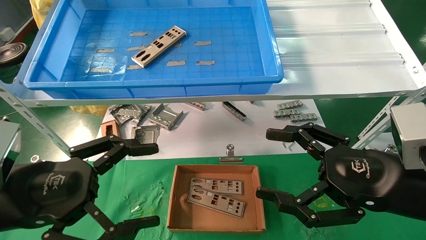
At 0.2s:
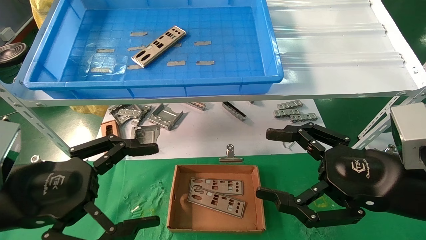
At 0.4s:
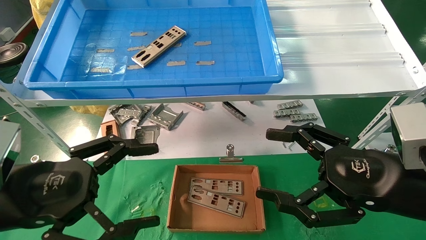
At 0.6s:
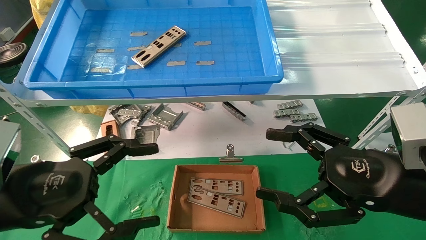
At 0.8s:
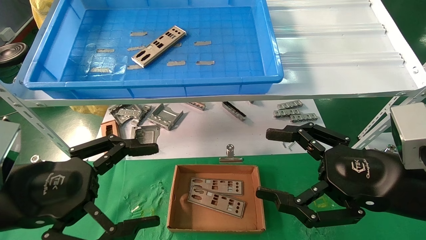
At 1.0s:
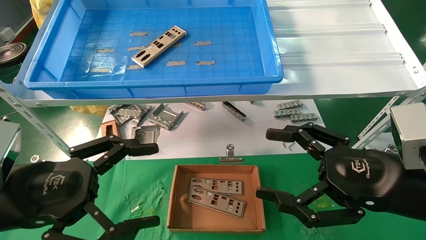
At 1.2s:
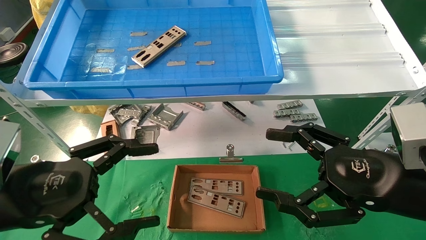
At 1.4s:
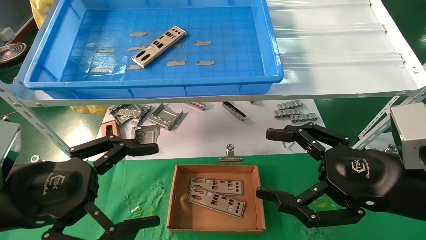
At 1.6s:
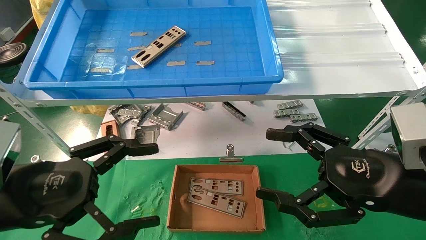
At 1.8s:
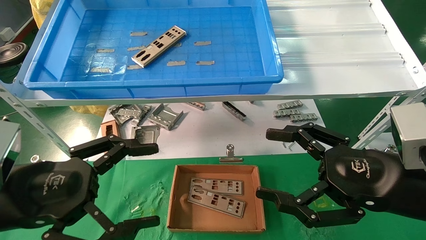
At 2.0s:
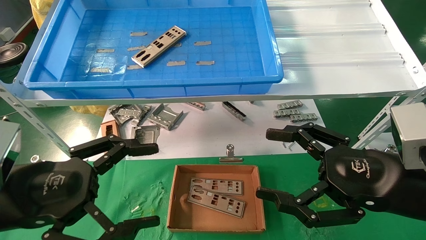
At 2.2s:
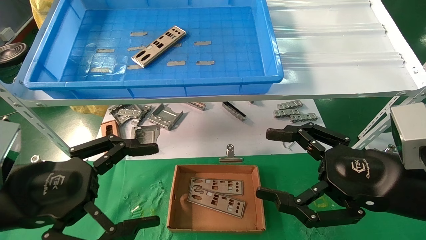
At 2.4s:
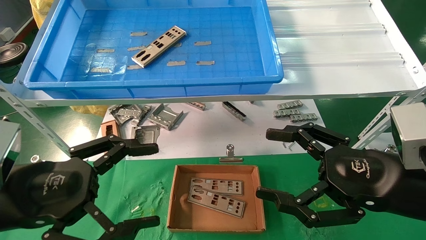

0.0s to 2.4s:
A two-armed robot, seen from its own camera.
Task of the whole recording: pick up the parts on the tray and put them in the cardboard box.
0.0s to 2.4s: The two grippers keep their place.

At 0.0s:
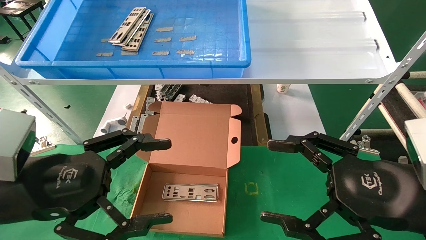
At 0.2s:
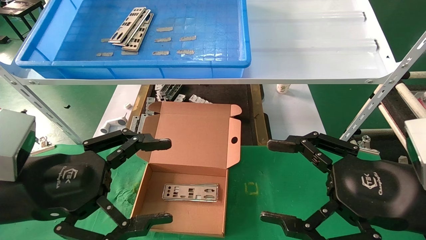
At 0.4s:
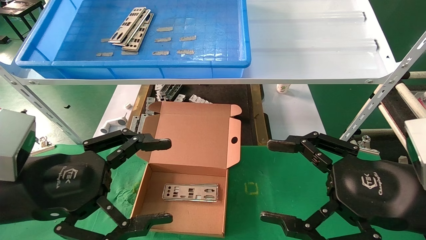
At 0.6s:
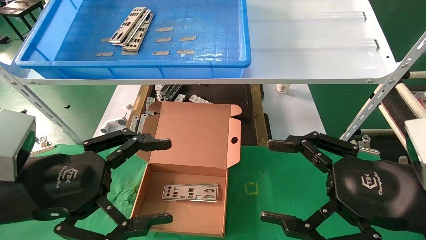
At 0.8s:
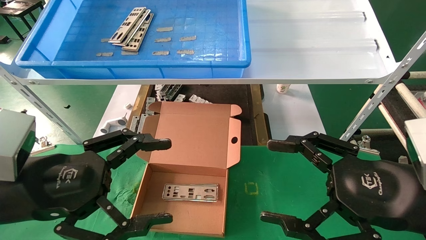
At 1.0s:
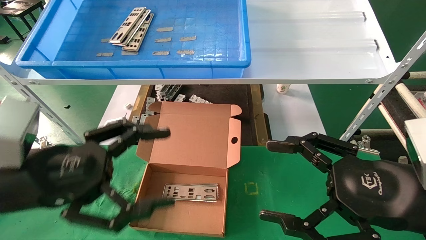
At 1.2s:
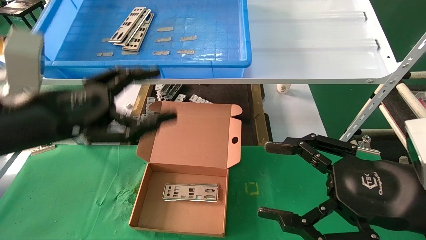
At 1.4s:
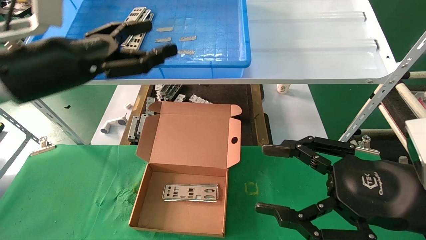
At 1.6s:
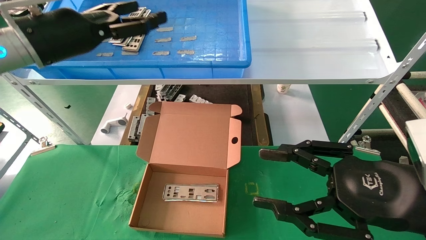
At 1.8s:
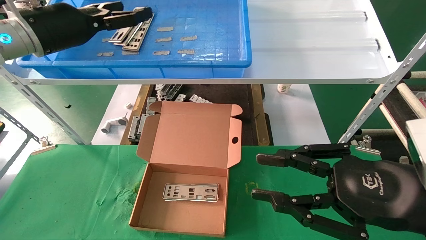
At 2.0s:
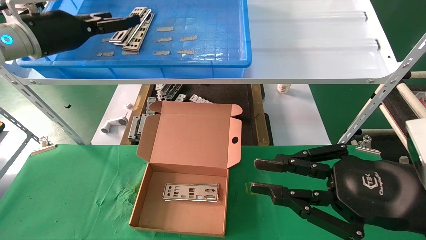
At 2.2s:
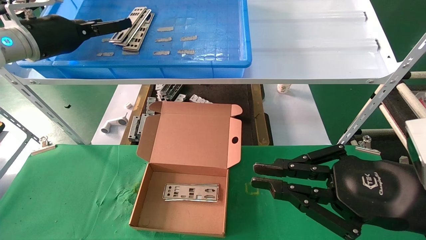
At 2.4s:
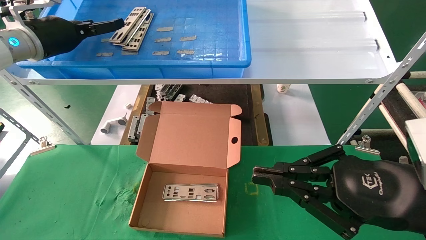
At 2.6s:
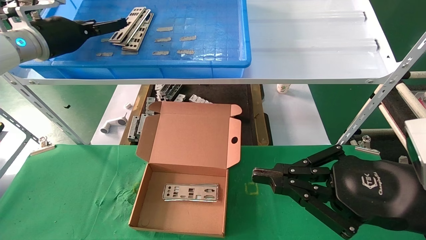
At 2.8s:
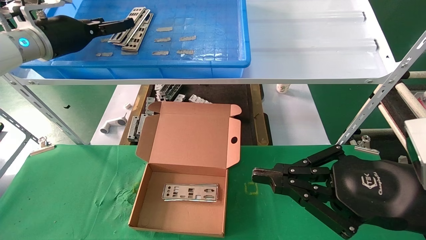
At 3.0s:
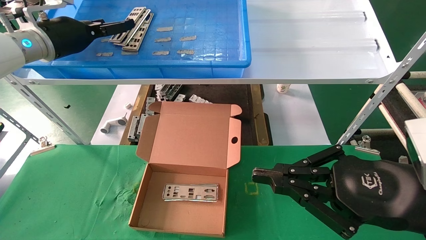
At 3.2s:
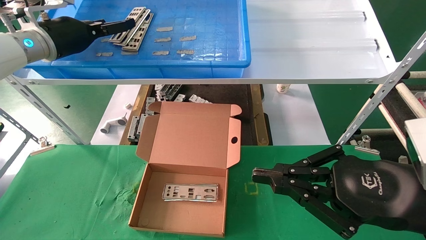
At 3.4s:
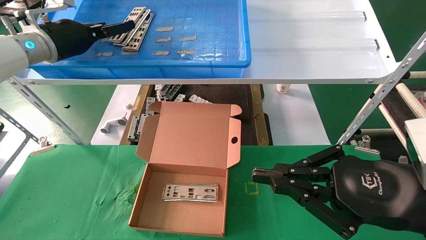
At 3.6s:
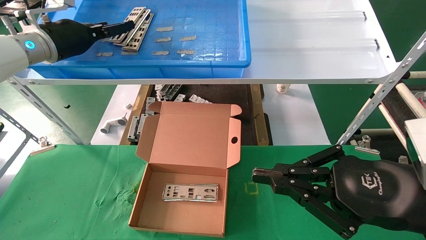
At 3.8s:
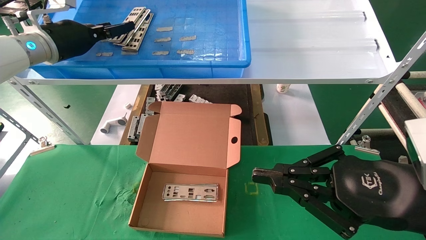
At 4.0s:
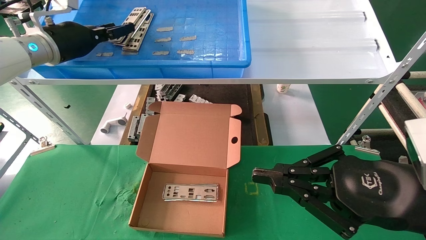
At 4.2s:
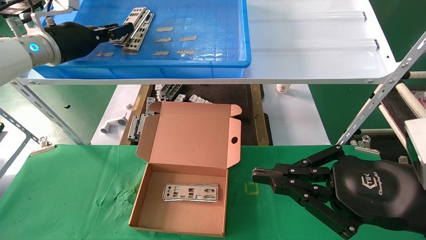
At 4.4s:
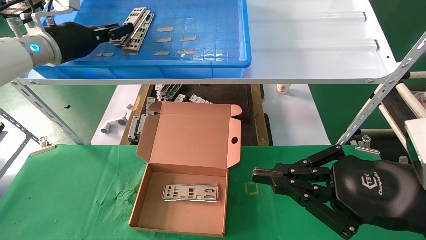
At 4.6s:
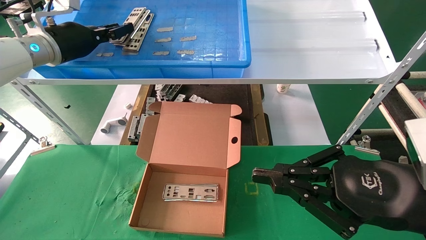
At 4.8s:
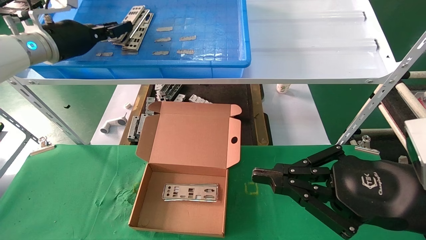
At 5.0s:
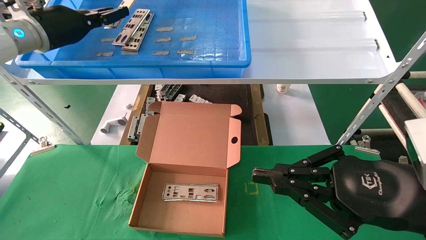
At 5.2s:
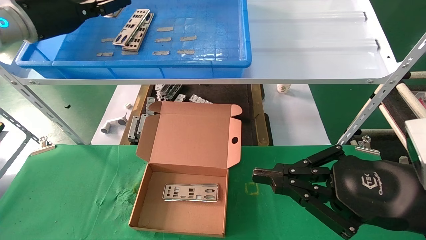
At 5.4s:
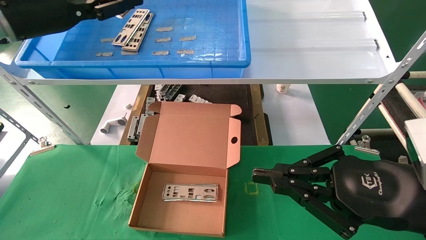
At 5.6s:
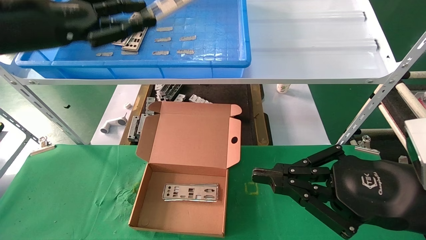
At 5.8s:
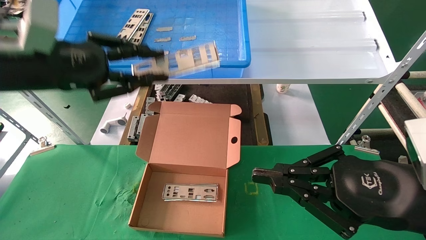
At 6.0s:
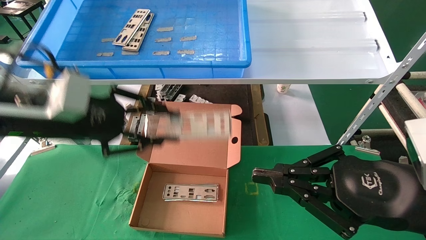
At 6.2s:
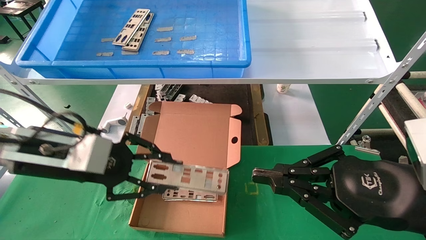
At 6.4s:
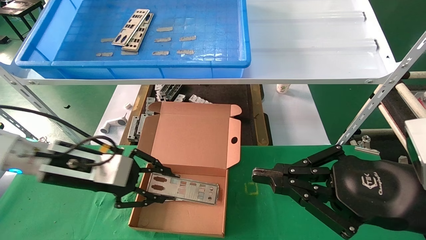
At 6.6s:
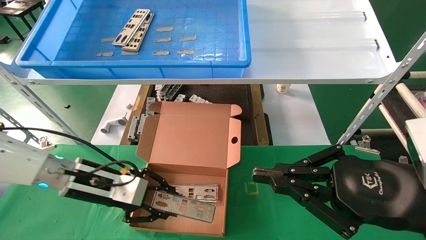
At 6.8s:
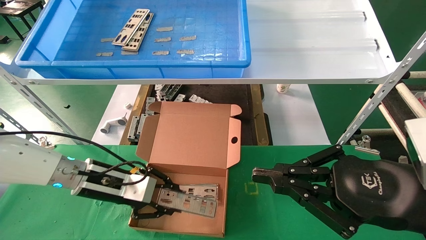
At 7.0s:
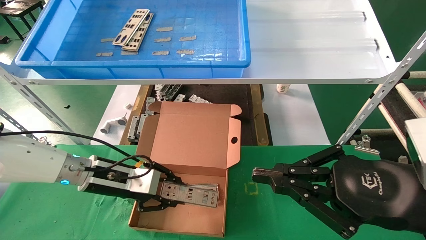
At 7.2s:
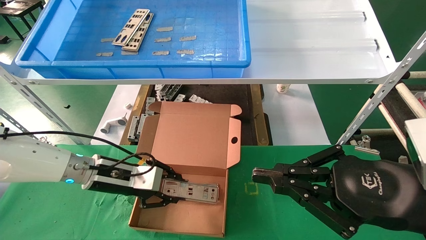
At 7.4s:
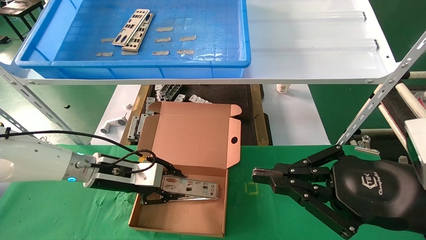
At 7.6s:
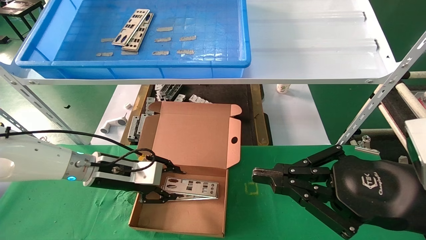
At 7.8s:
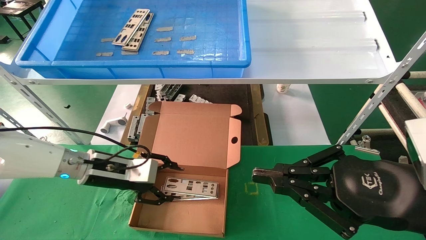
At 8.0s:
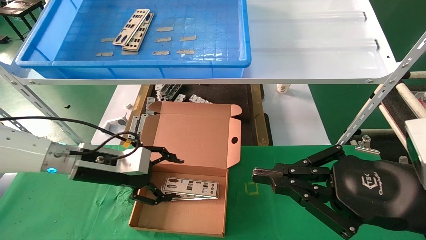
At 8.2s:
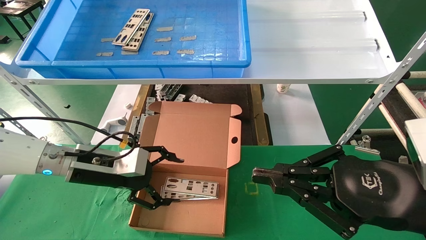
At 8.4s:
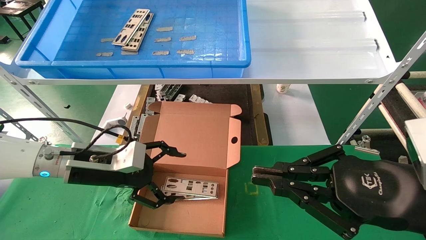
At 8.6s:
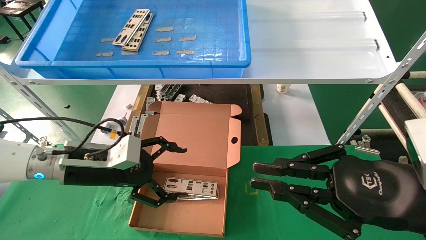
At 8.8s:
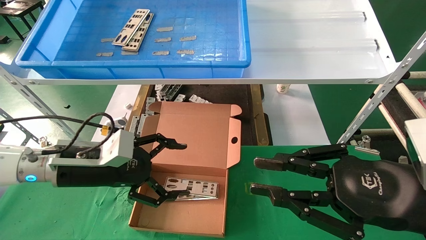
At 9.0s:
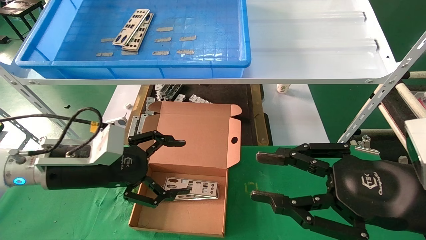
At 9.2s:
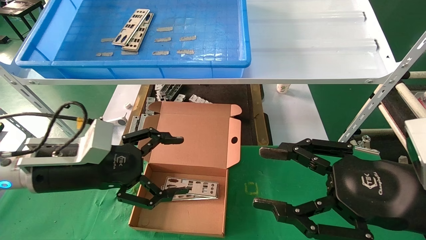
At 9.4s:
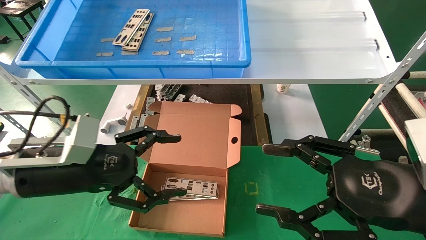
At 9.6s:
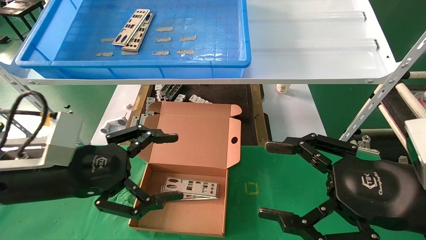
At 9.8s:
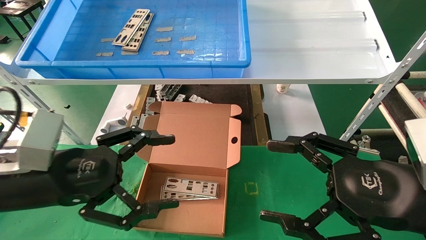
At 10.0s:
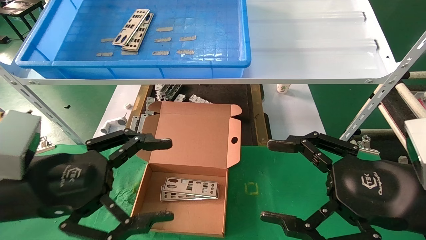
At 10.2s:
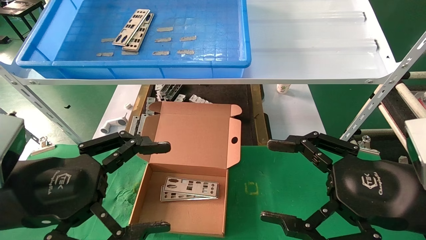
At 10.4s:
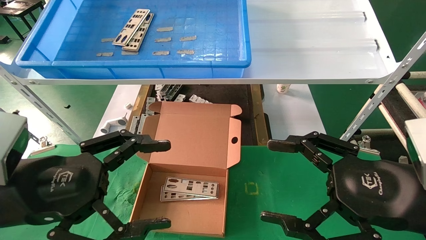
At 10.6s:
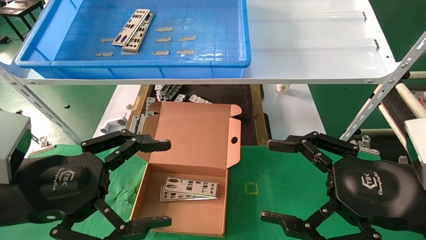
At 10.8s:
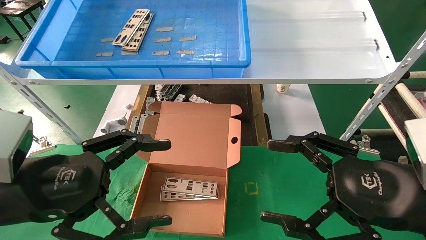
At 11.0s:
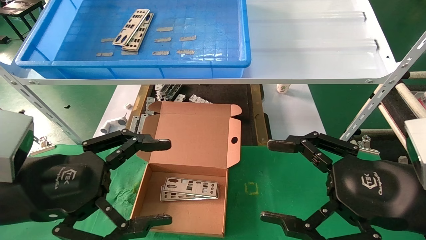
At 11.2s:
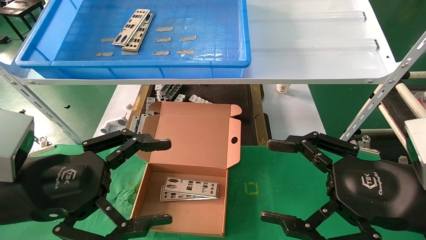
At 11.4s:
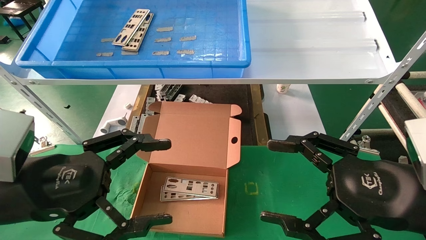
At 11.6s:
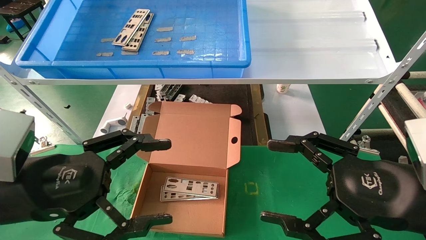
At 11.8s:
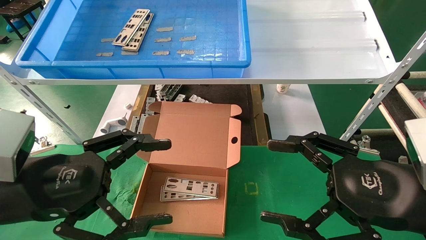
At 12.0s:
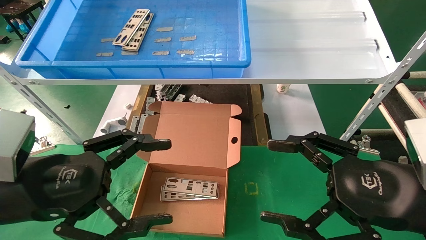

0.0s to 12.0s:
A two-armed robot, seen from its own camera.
Task of the whole recording: pick up the parts on the tray and put them in the cardboard box.
Step, 1.4s to 5.2s: Pick up the IO bracket from the container box.
Step, 5.4s to 7.6s: Place the IO bracket into the ingredient slot.
0.0s to 1.6s: The left gripper is displaced forward and upward by roughly 20 cm.
1.6s to 3.0s: The left gripper is displaced forward by roughly 10 cm; the right gripper closes its fingers.
3.0s to 4.4s: The left gripper closes.
4.4s to 6.0s: The left gripper moves backward and downward, approximately 15 cm.
6.0s to 7.6s: The left gripper is displaced downward and forward by approximately 20 cm.
7.6s to 9.0s: The left gripper moves backward and upward, approximately 10 cm, and opens.
9.0s to 10.4s: The left gripper shifts roughly 10 cm backward; the right gripper opens up.
10.4s to 12.0s: The two grippers keep their place.

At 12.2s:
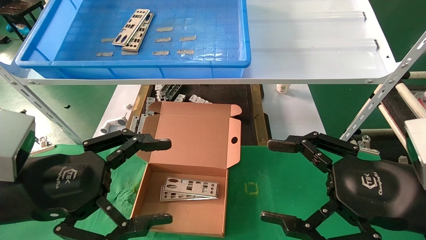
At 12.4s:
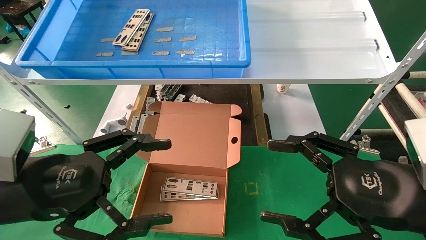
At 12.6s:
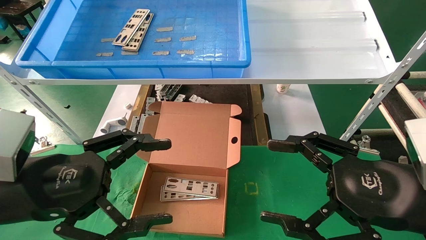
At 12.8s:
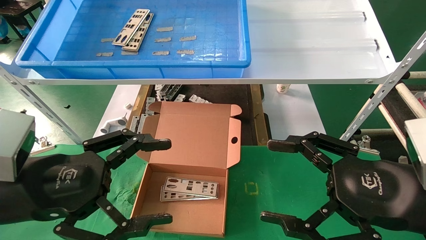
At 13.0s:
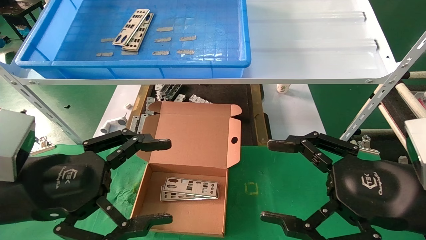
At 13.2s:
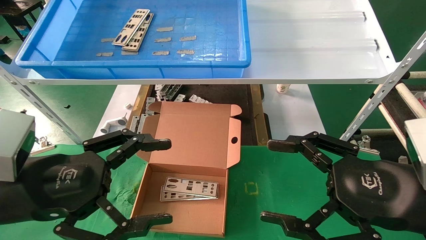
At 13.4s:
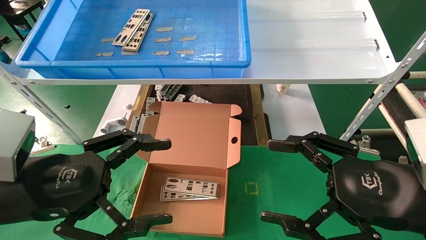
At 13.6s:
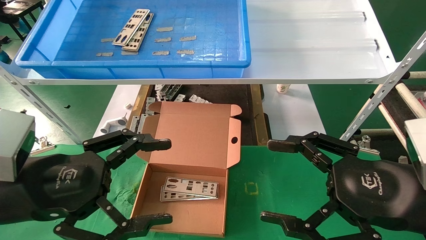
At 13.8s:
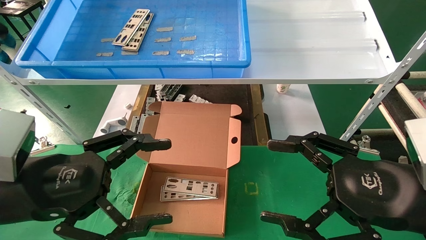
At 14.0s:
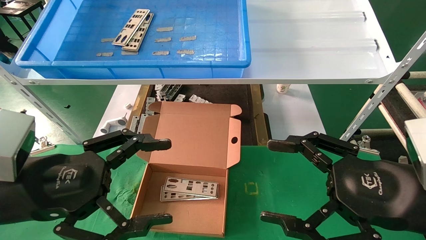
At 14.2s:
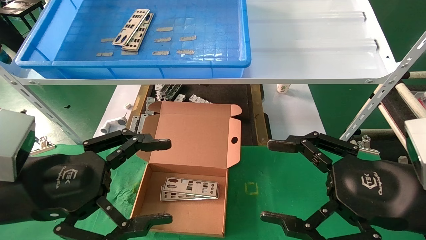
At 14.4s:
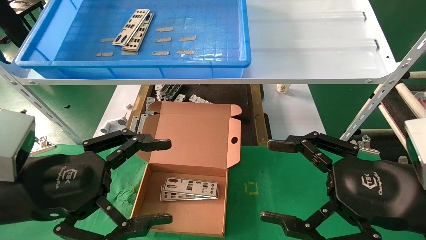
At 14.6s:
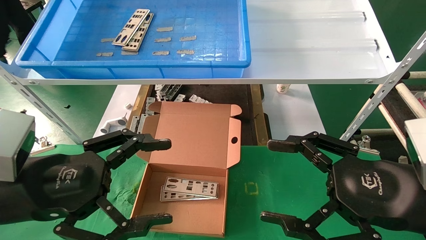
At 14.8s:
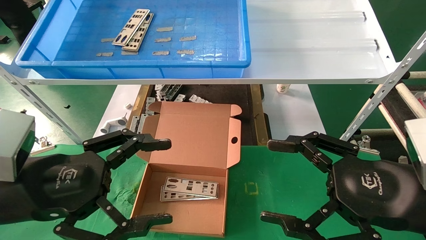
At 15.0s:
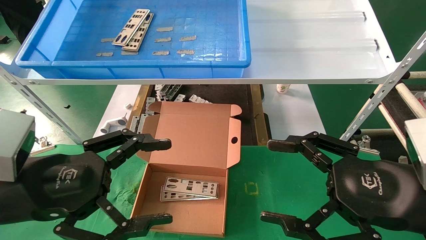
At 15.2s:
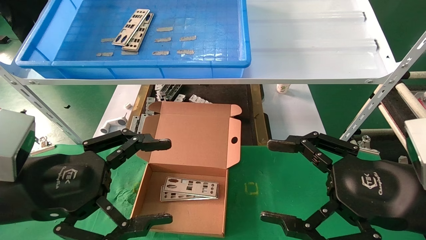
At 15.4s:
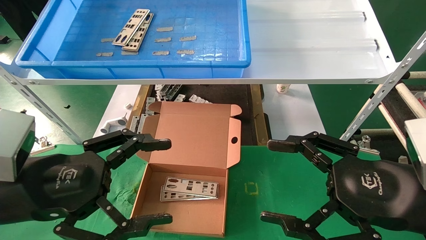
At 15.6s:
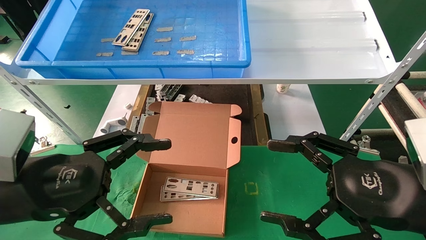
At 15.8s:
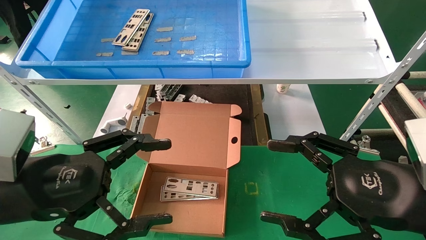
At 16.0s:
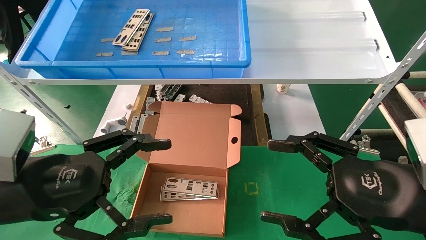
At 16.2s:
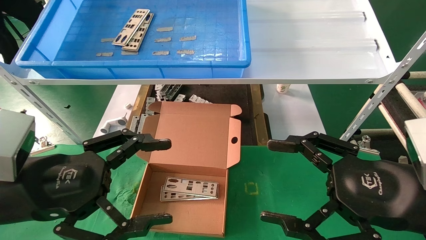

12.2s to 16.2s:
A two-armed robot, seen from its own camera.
Task of the whole recording: pick up the parts on the tray and put them in the cardboard box.
12.2s to 16.2s: Both grippers stay put.
